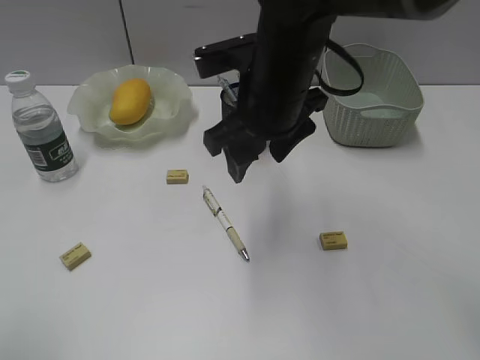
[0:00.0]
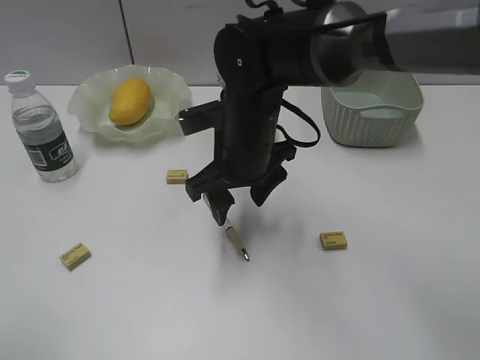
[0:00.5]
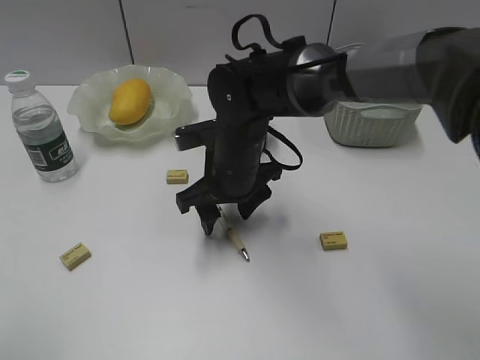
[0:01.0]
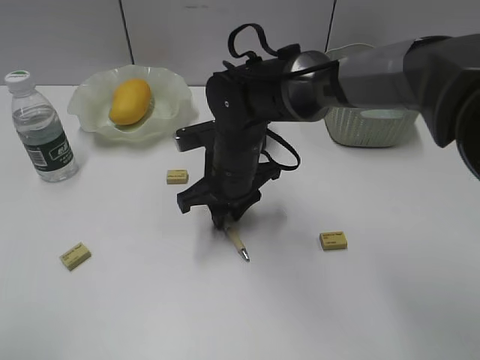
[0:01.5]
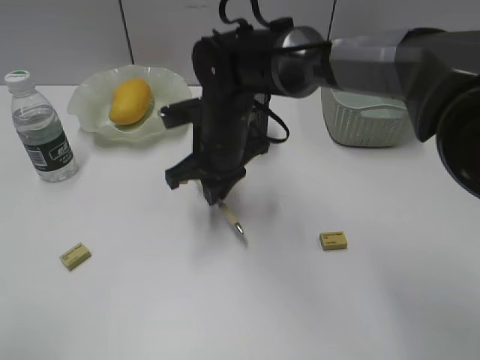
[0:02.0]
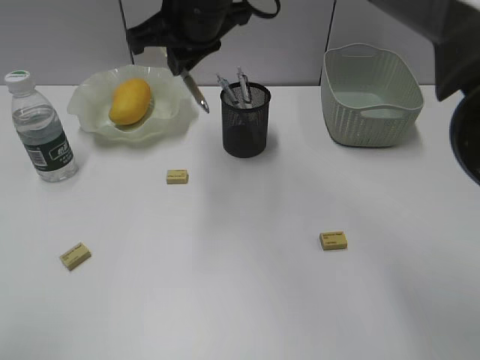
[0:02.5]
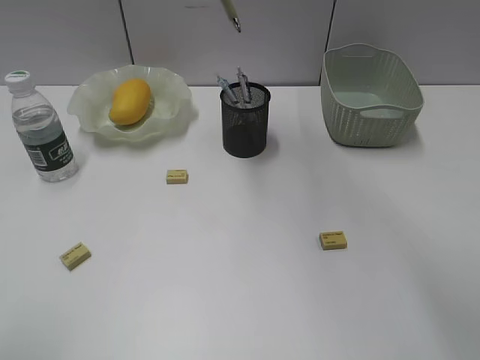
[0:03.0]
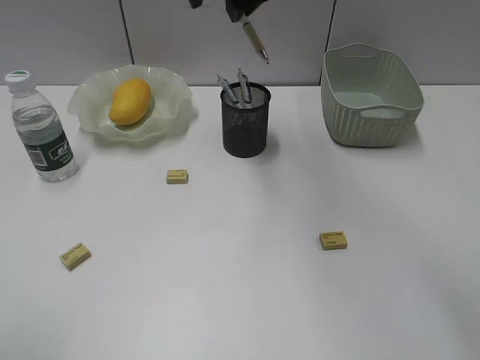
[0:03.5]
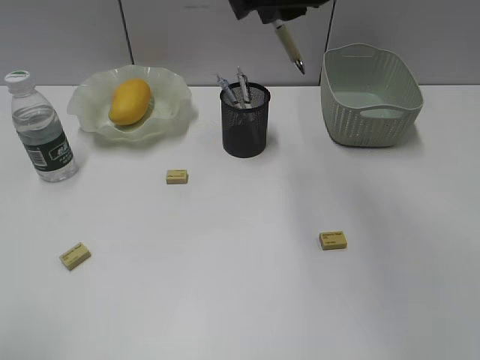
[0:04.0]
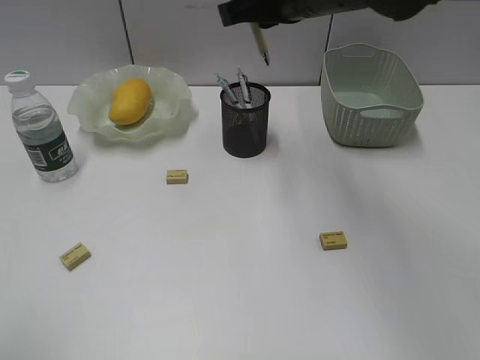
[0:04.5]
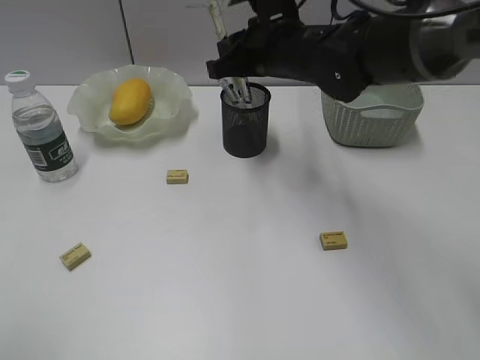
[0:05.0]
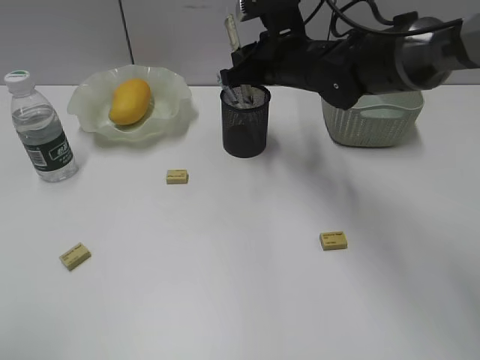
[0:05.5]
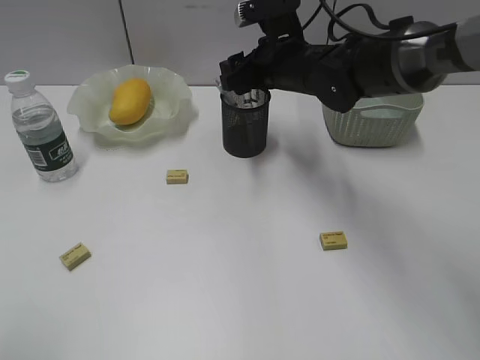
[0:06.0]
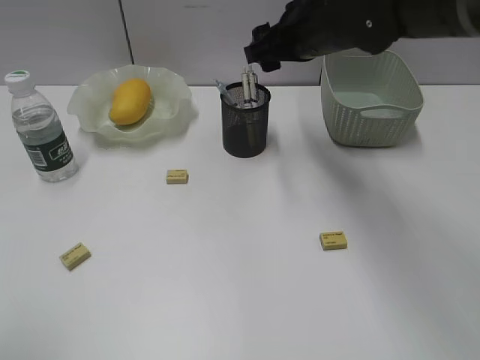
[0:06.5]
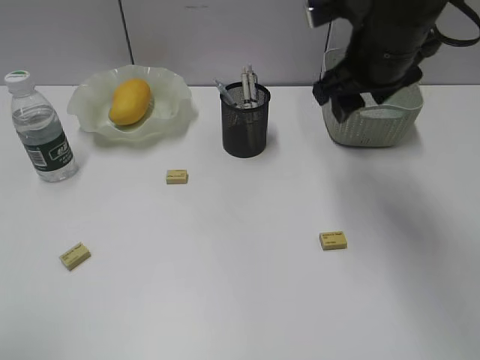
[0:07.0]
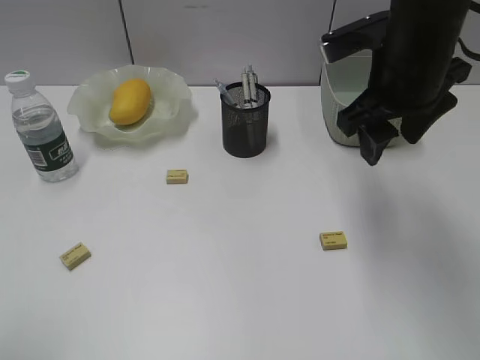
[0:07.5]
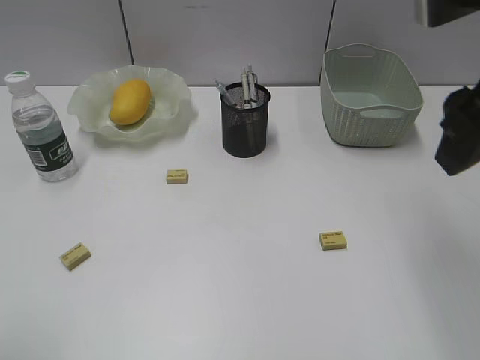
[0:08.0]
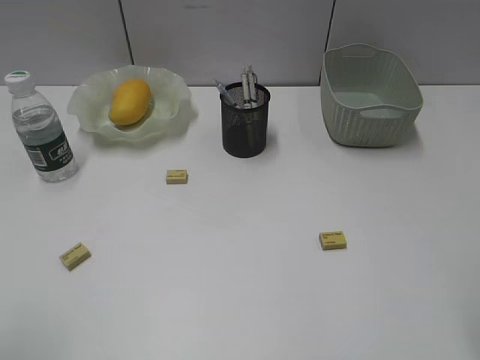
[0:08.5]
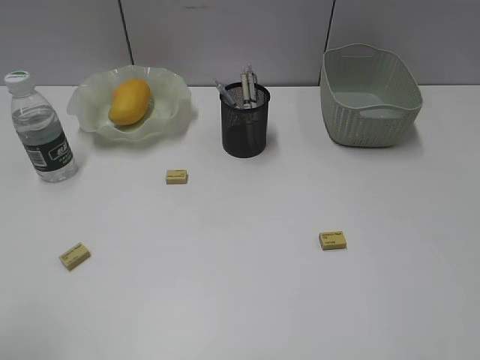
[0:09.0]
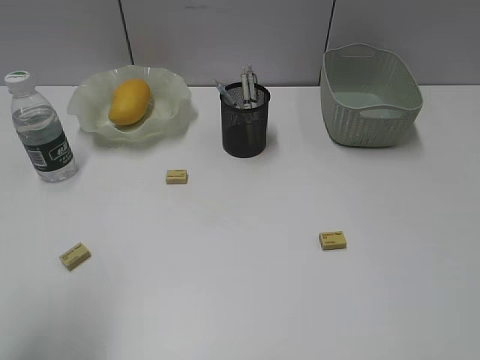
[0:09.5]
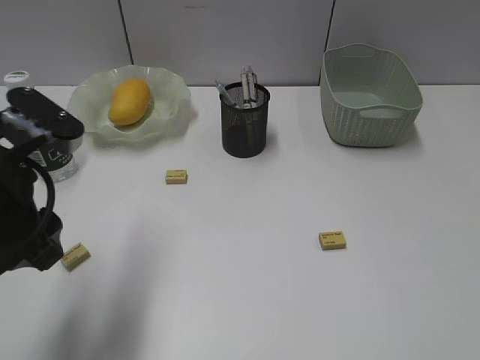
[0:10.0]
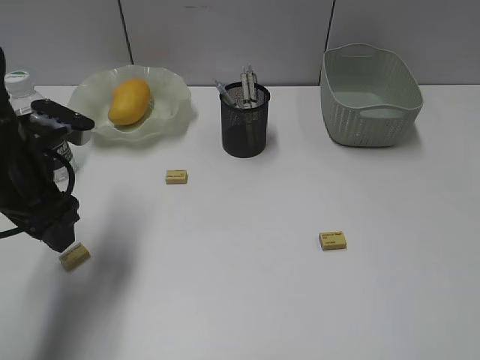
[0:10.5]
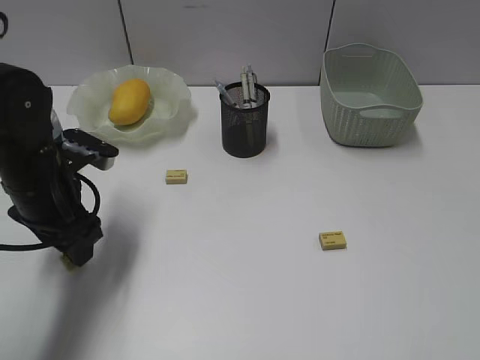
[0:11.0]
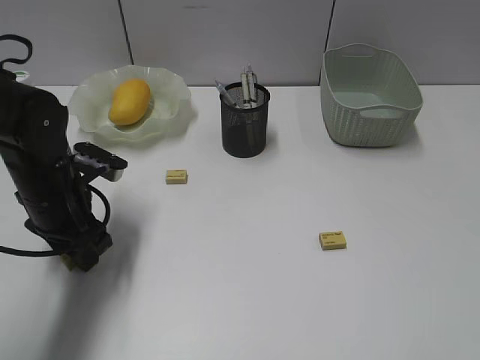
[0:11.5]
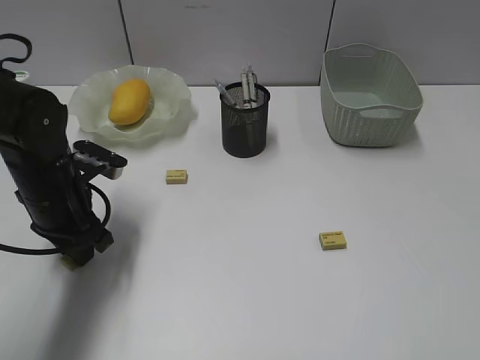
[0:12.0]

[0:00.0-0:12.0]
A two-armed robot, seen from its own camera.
Step, 0:02.0 to 0:06.0: Place the yellow pen in pen holder with right gripper.
Step, 0:06.5 to 0:12.0: Grasp the eraser with left gripper.
0:00.0 to 0:02.0: The right gripper goes approximately 10 cm downward and to the left, and closes up.
0:02.0 to 0:04.0: The right gripper is displaced upward by approximately 20 cm.
0:04.0 to 0:06.0: The right gripper heads downward and forward, covering about 20 cm, and opens.
0:06.0 to 0:08.0: The right gripper travels backward, upward and to the right by some 30 cm.
0:08.0 to 0:10.0: The right gripper moves backward and to the right, roughly 25 cm, while the left gripper shifts approximately 20 cm forward and to the right.
0:10.0 to 0:12.0: The left gripper moves downward and forward, approximately 15 cm, and closes its fingers.

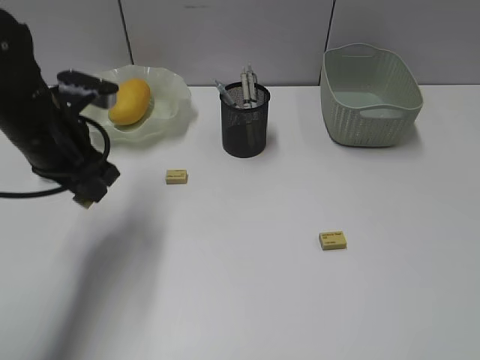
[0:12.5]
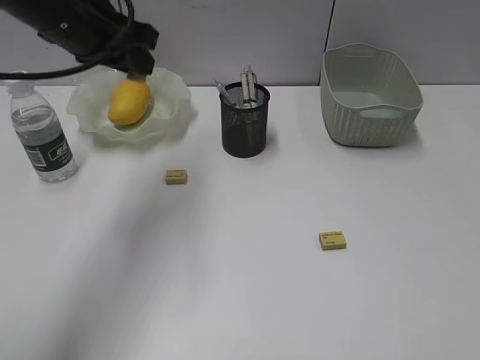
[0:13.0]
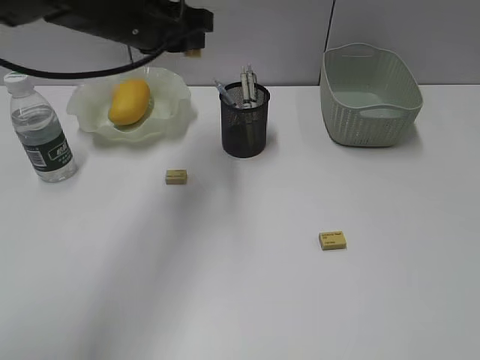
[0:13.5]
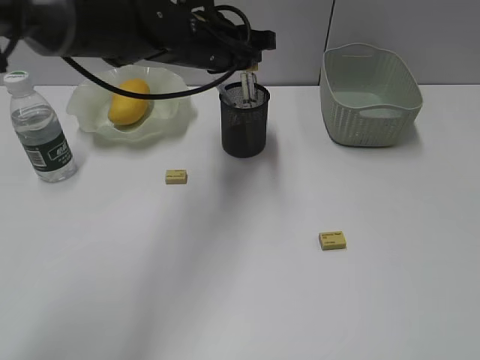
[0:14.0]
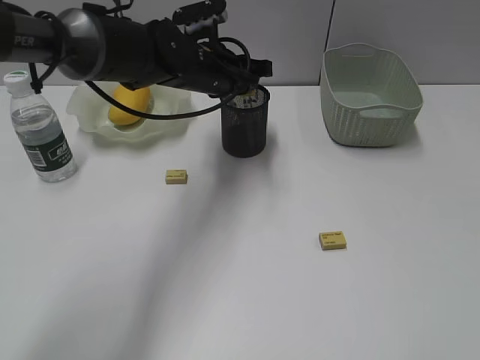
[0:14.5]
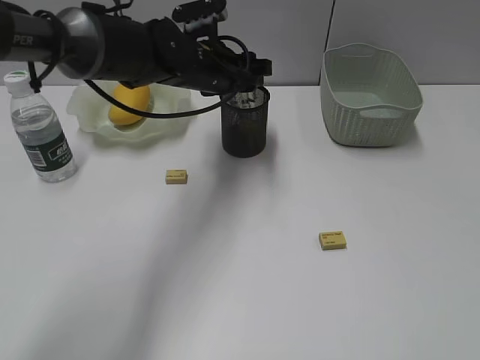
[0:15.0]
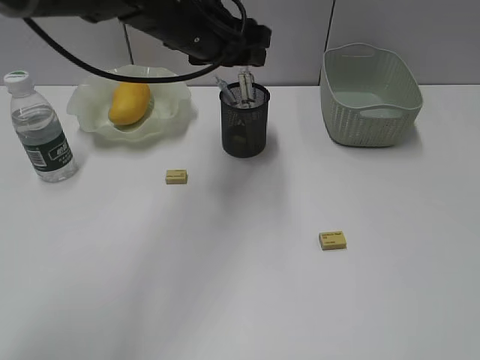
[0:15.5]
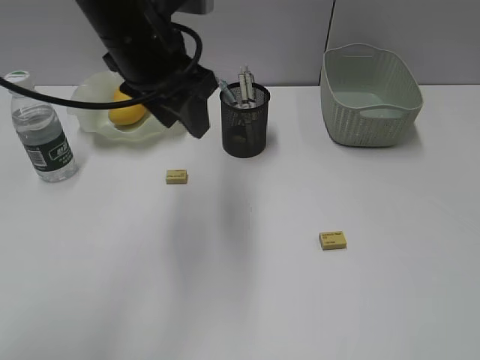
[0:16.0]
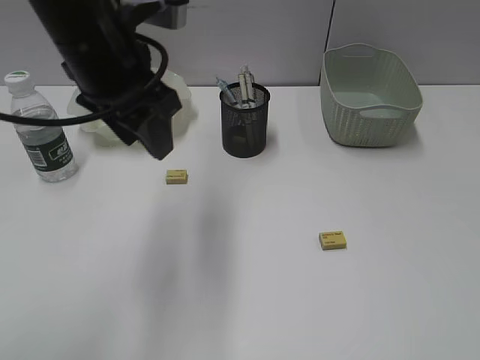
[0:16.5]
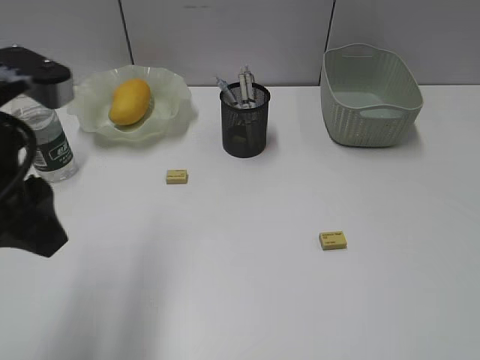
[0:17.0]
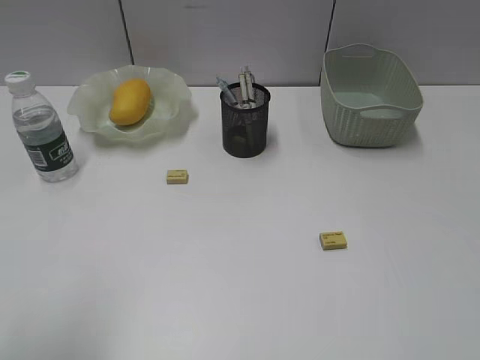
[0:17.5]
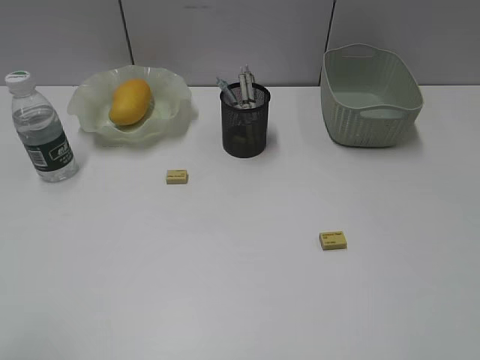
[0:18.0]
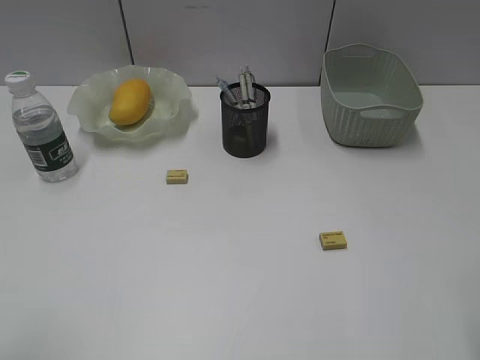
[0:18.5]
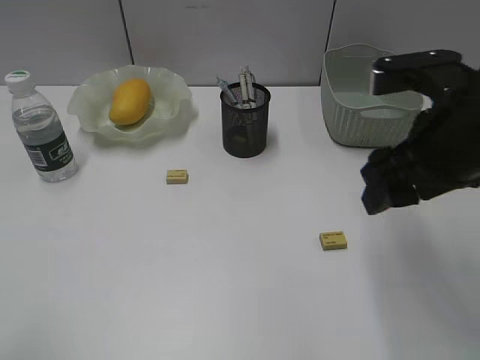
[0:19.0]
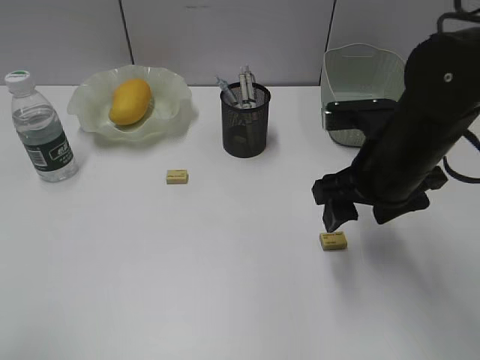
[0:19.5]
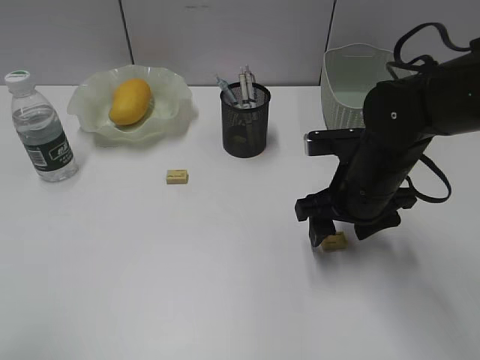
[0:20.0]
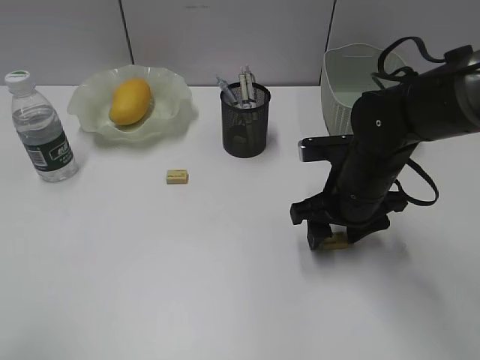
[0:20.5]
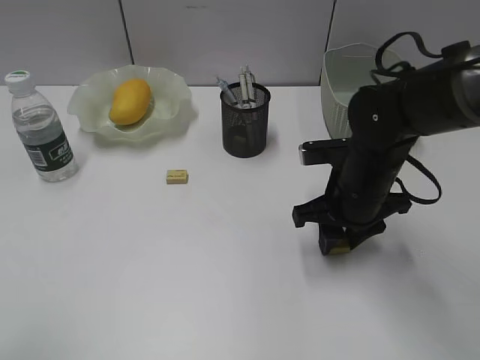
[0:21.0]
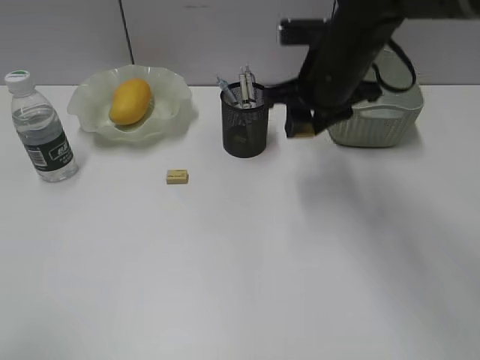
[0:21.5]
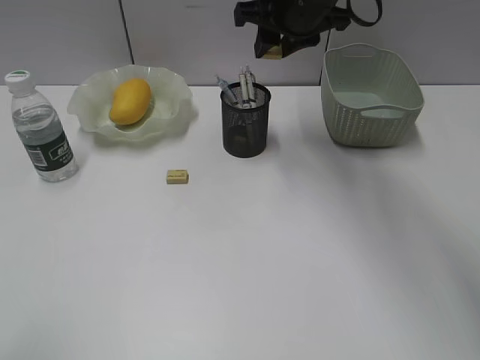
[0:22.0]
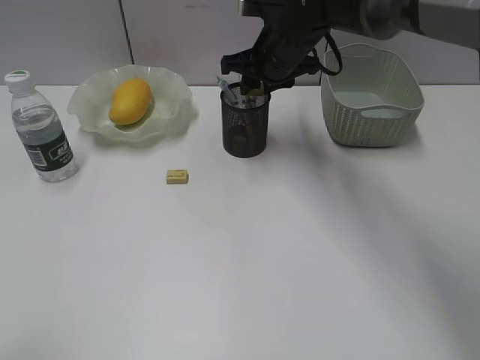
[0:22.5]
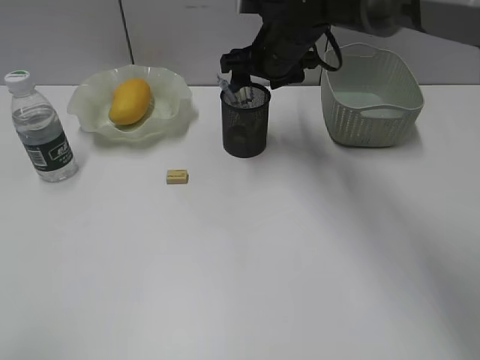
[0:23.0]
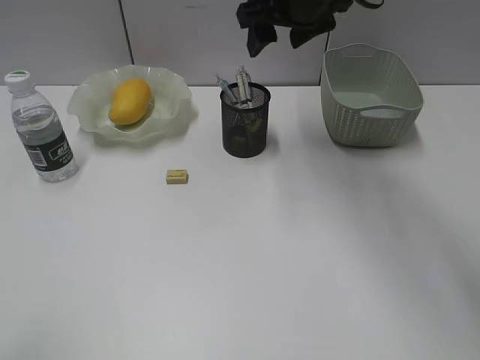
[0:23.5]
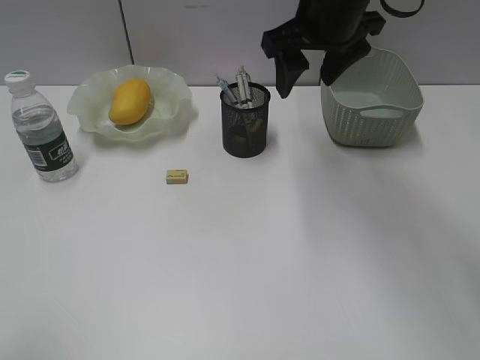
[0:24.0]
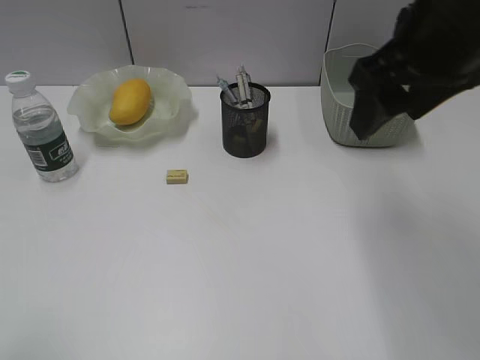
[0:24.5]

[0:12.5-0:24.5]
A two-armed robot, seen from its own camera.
Step, 0:12.5 to 0:14.5: Place the eraser in pen holder with left gripper.
Step, 0:15.0 to 0:20.5: Grasp the eraser with right gripper.
Step, 0:21.0 to 0:22.5: Place the eraser in pen holder with right gripper.
0:12.5 to 0:14.5: The left gripper heads to the right and forward, covering about 20 cm.
0:14.5 to 0:16.5: The left gripper shifts approximately 20 cm backward, upward and to the left, and opens.
0:16.5 to 0:18.5: The right gripper goes about 5 cm forward. The left gripper shifts approximately 35 cm backward and to the left.
0:18.5 to 0:20.5: The right gripper moves forward, downward and to the left, about 30 cm.
0:20.5 to 0:22.5: The right gripper moves forward, upward and to the left, some 20 cm, and closes up.
0:22.5 to 0:24.5: The right gripper is displaced backward, upward and to the right by some 25 cm, and opens.

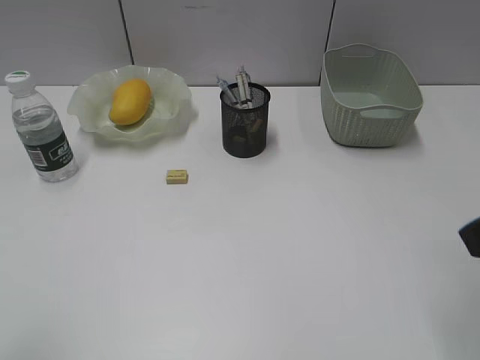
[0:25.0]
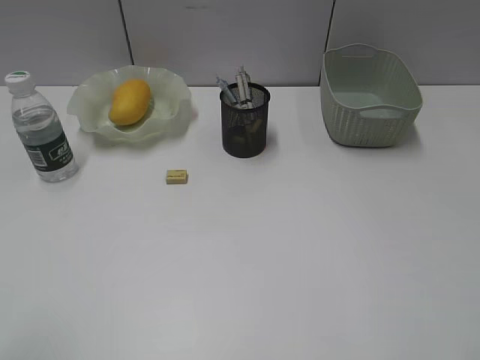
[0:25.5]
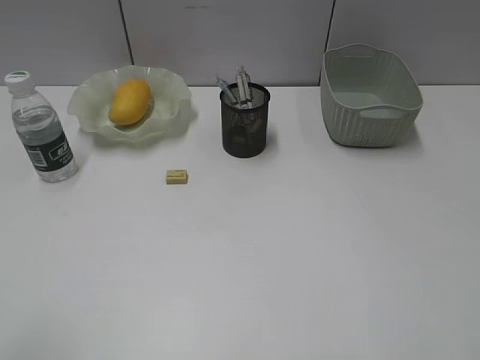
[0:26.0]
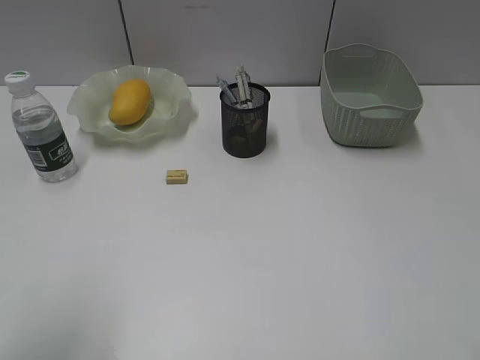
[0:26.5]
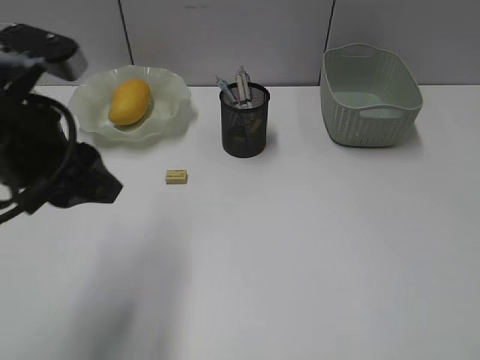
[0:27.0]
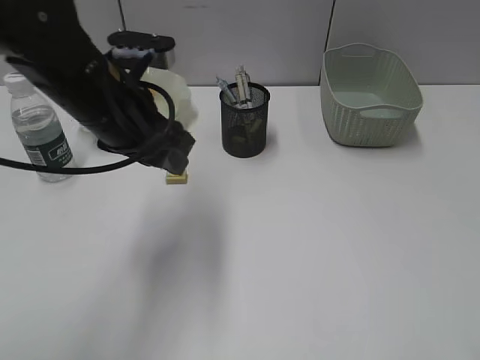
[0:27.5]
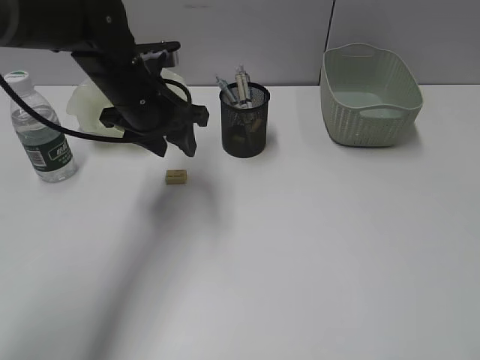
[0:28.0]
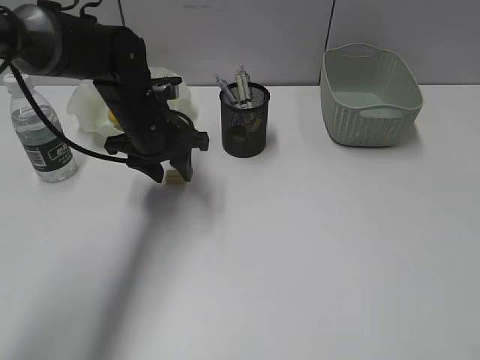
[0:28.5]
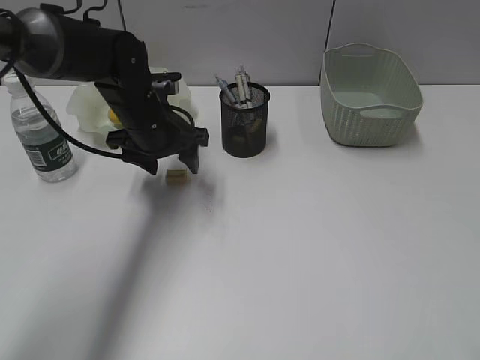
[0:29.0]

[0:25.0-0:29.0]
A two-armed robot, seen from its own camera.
0:25.0 to 0:27.0: The right gripper goes approximately 10 cm backward and to the right. The left gripper travels forward and to the right by roughly 20 cm.
0:27.0 to 0:29.0: The left gripper moves forward and downward, about 25 cm, and opens up.
